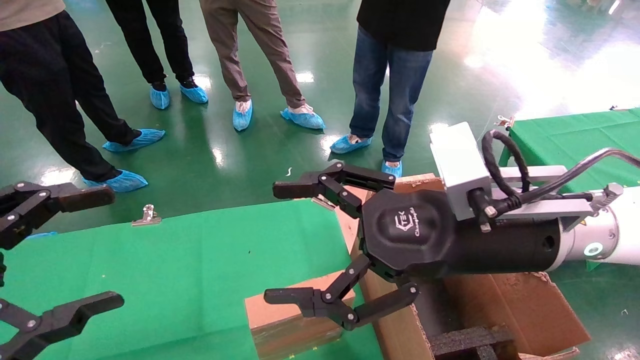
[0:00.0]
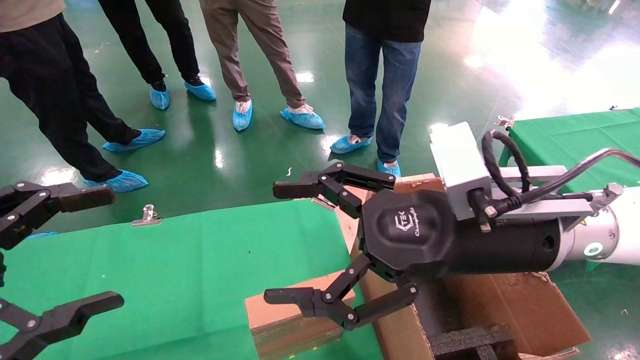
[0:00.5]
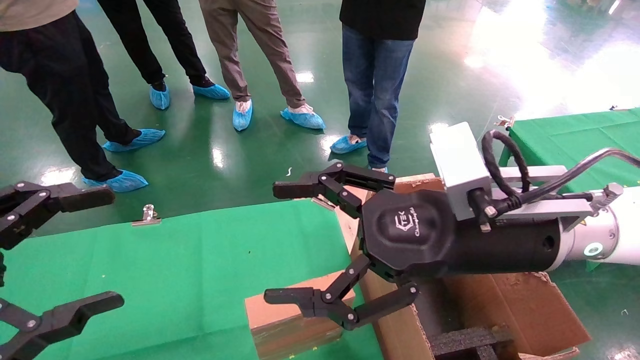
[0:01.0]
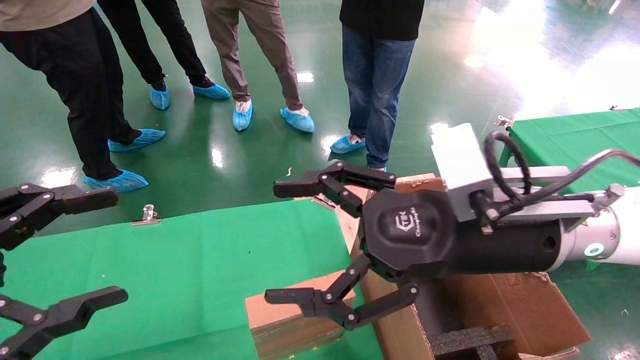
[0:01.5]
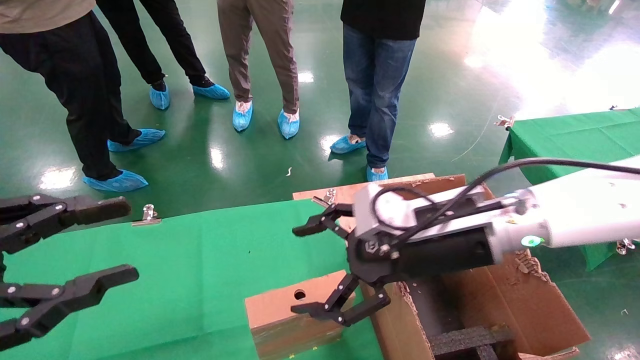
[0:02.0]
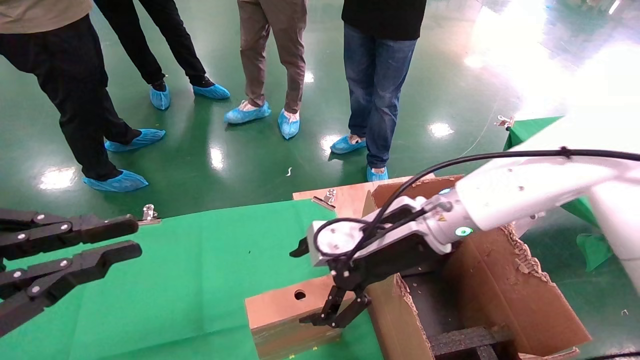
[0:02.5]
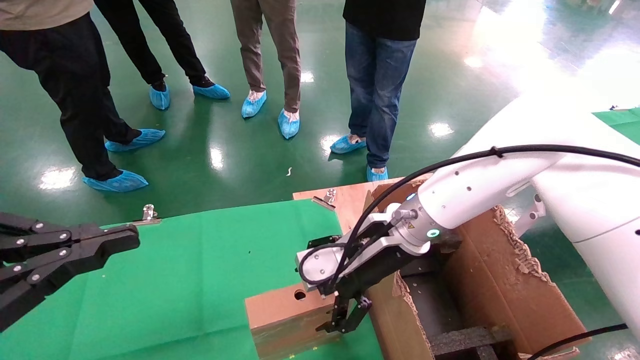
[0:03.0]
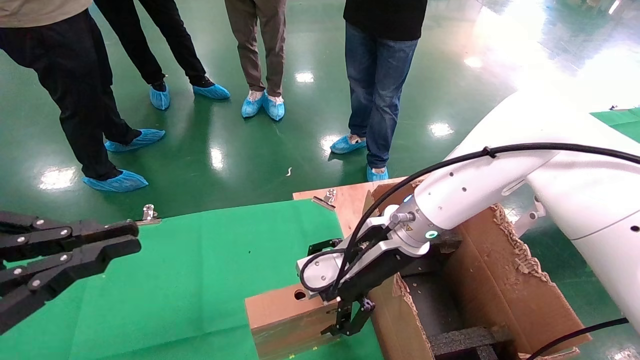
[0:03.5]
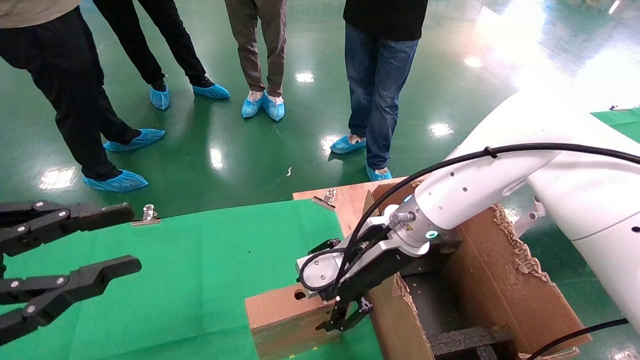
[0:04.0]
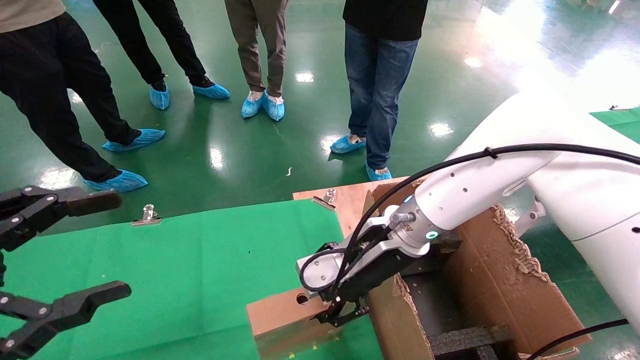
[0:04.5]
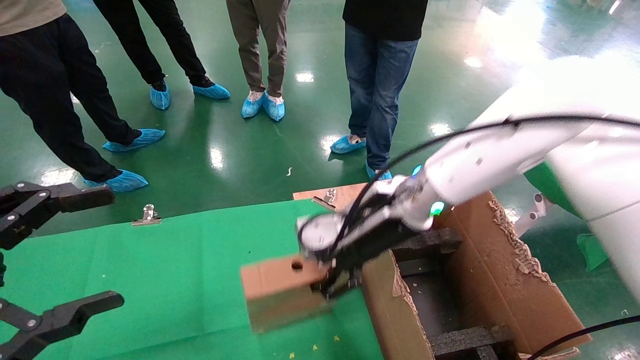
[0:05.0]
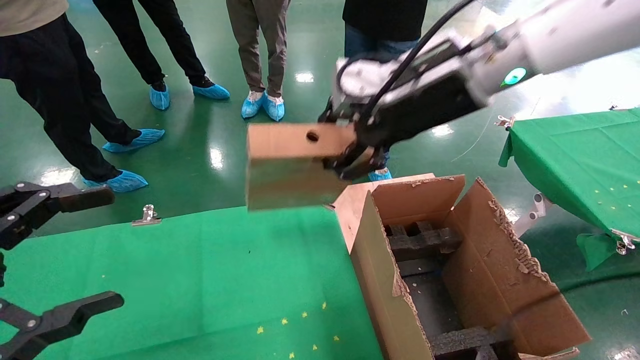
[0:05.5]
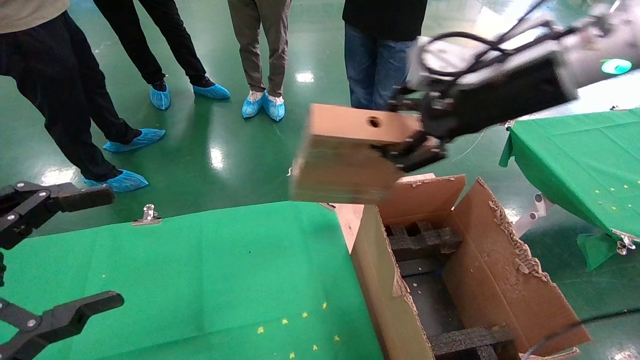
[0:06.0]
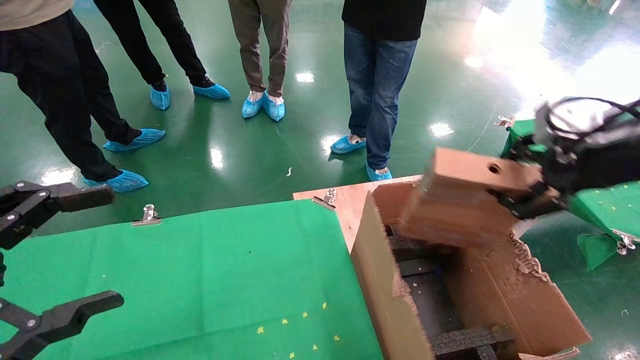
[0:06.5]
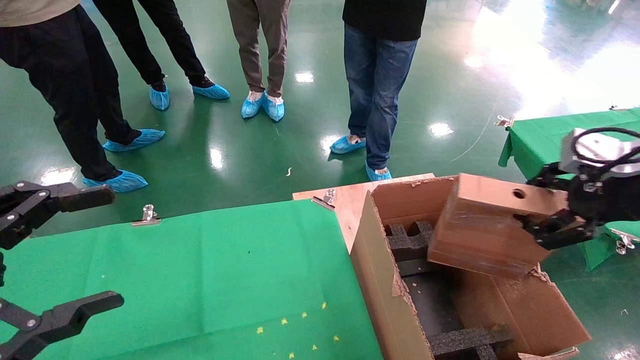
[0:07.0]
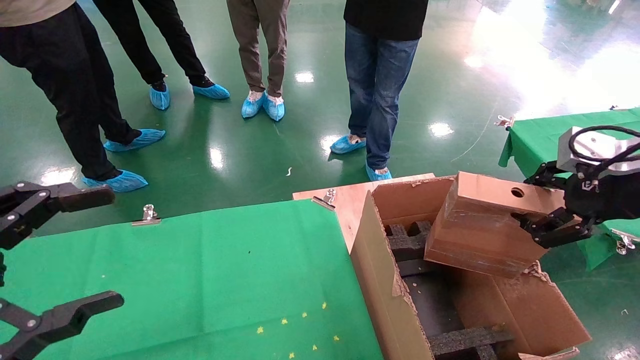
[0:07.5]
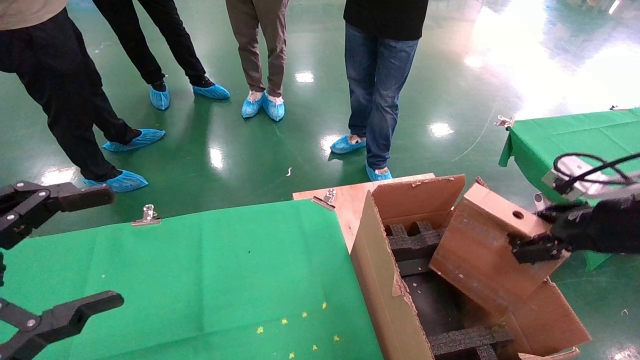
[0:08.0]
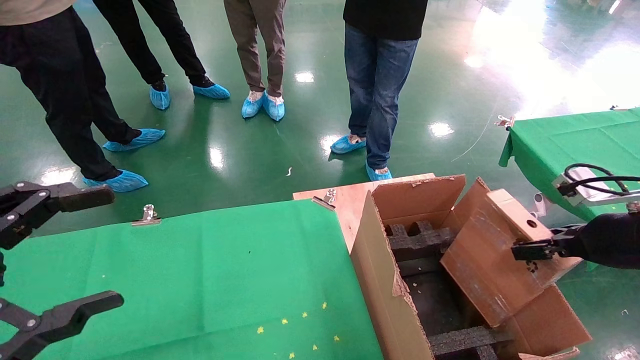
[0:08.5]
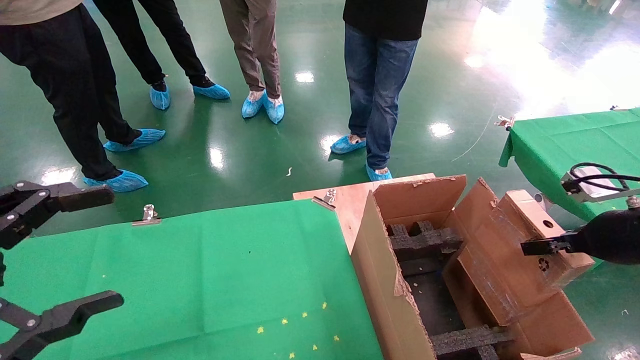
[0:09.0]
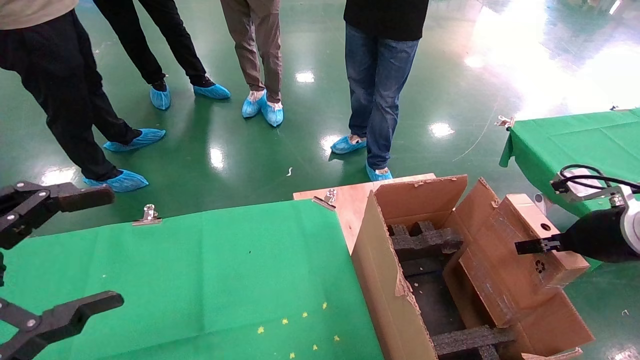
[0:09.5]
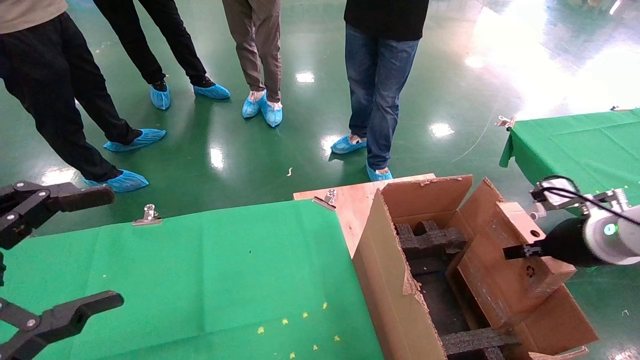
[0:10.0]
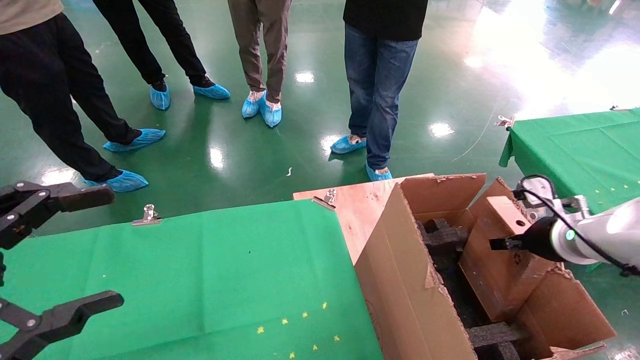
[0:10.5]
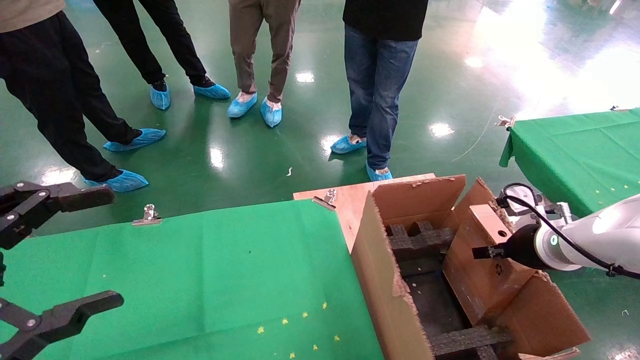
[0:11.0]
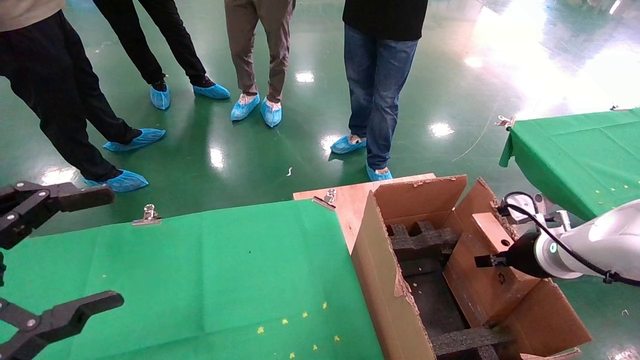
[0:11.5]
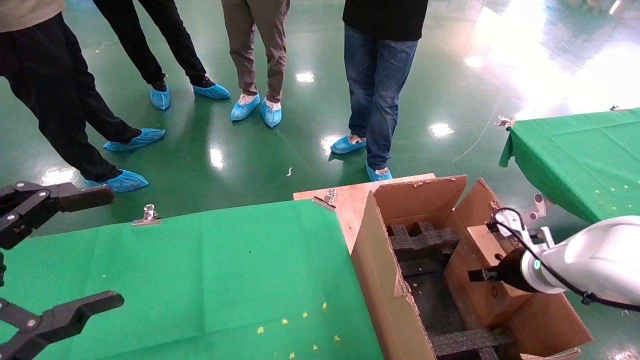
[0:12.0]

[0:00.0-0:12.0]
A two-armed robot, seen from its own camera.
Task of the whole recording: using a robotic arm to pick up a cardboard box and palace it the carton.
Step, 0:02.0 to 0:04.5: Pick up the mouse and the power cord paper box.
0:00.0 to 0:02.0: The right gripper is displaced forward by roughly 5 cm.
0:02.0 to 0:04.0: The left gripper closes, while the right gripper is displaced forward and to the left by some 10 cm.
0:04.0 to 0:06.0: The left gripper opens up. Meanwhile the right gripper shifts approximately 25 cm upward and to the right, and closes.
0:06.0 to 0:08.0: The right gripper goes some 20 cm to the right, downward and backward.
0:08.0 to 0:10.0: The right gripper heads forward and downward, covering some 10 cm.
0:10.0 to 0:12.0: The right gripper shifts about 10 cm downward.

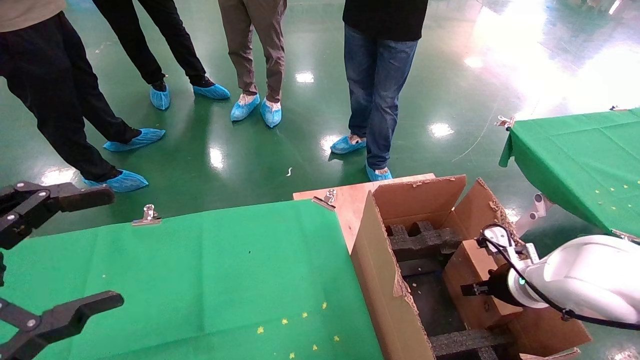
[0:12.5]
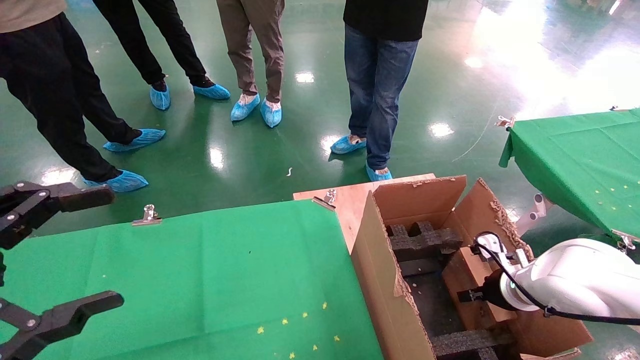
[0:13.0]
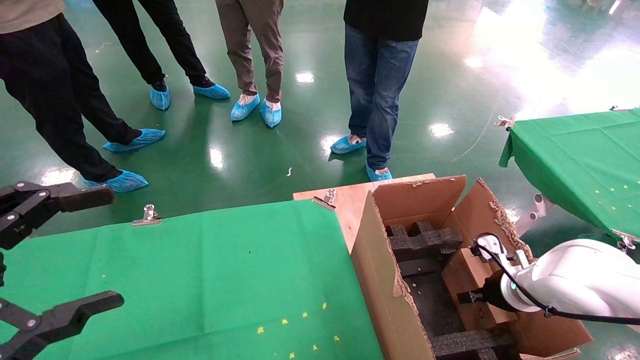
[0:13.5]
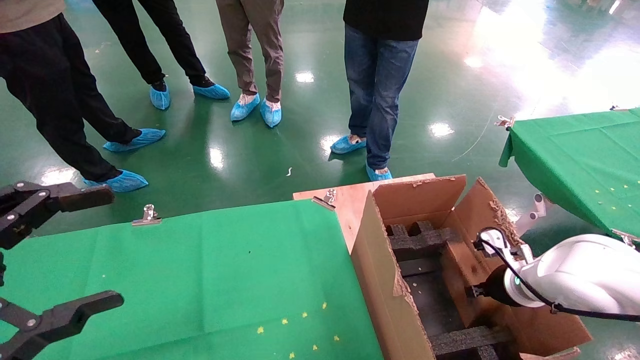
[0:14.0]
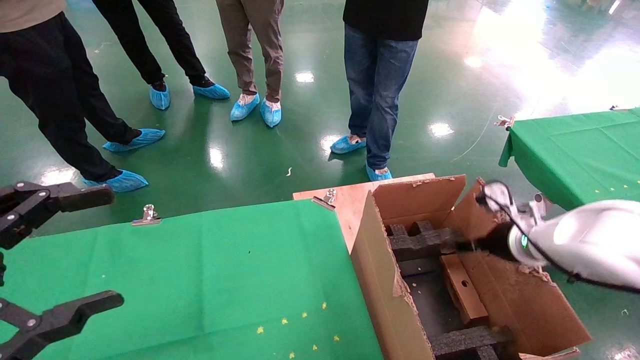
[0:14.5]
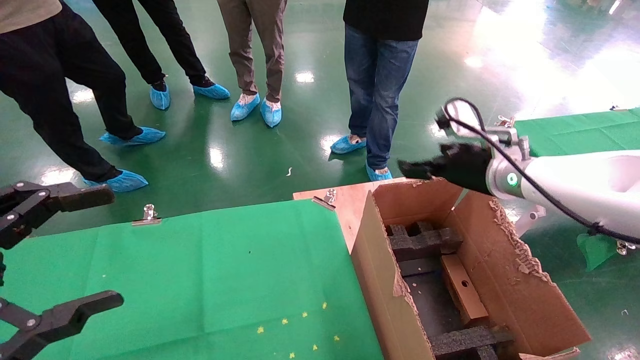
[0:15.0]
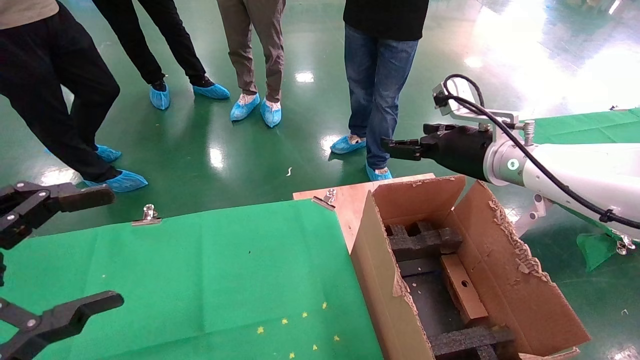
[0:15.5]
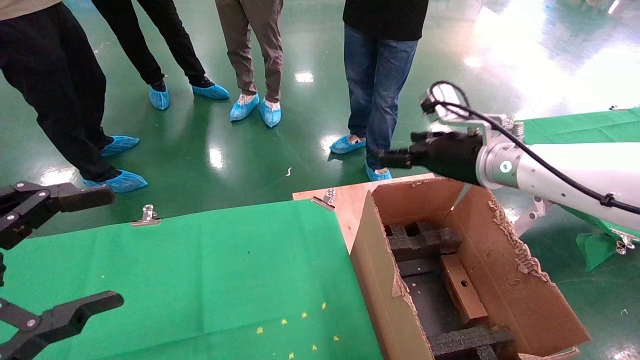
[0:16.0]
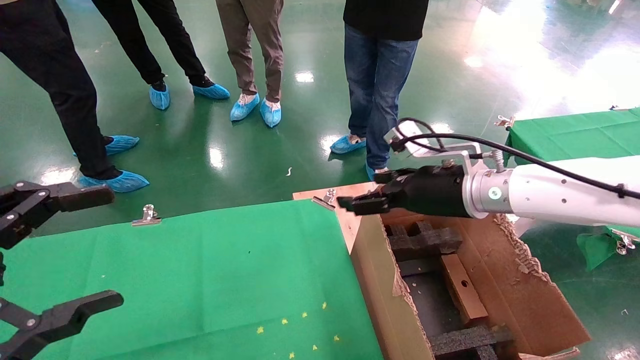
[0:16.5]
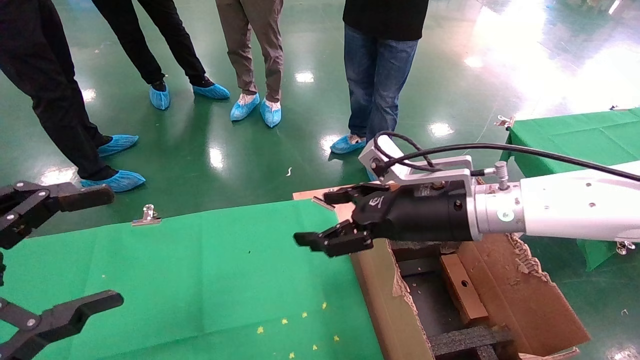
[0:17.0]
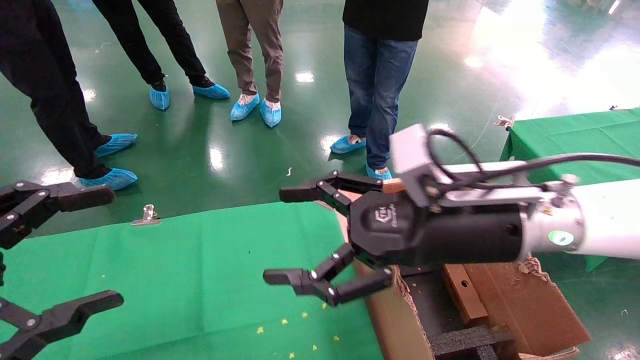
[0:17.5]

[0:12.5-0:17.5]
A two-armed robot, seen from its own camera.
Task of the whole recording: using a robotic arm to pick up a cardboard box and palace it the carton.
Step, 0:12.5 to 0:14.5: Place the mouse and the power cord paper box into the container.
0:12.5 to 0:15.0: The right gripper travels upward by roughly 20 cm, and opens.
0:15.0 to 0:17.5: The right gripper heads backward and to the left, covering some 20 cm.
